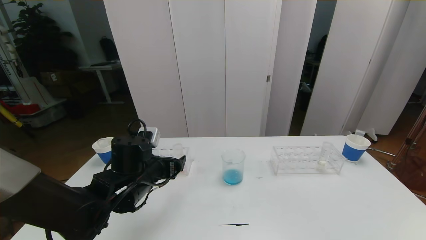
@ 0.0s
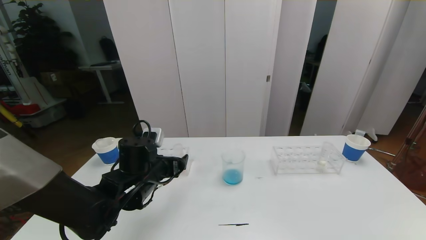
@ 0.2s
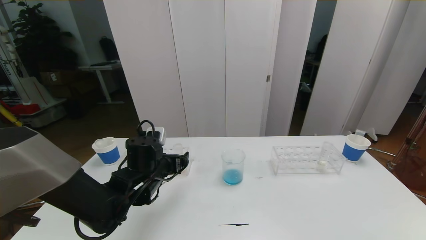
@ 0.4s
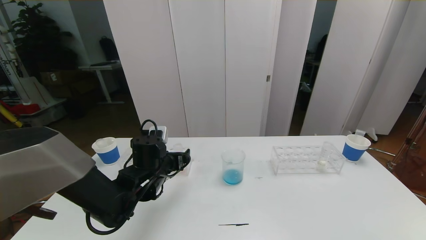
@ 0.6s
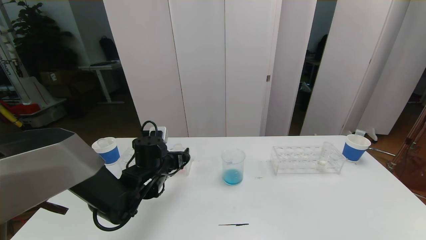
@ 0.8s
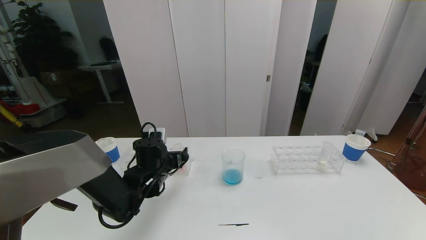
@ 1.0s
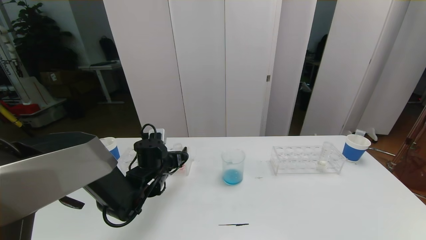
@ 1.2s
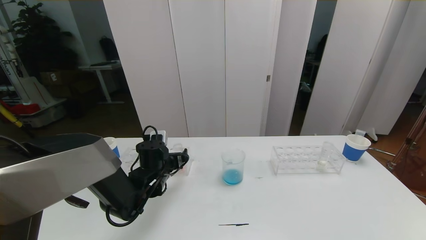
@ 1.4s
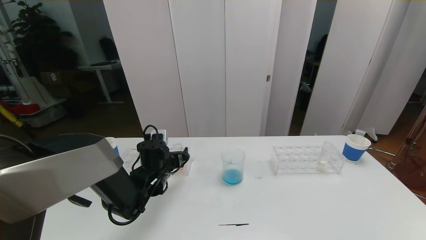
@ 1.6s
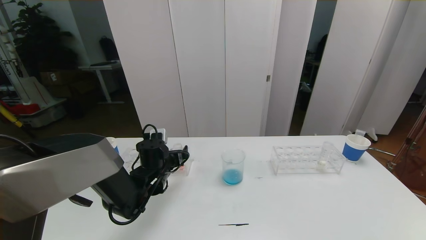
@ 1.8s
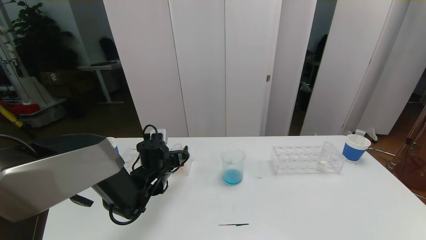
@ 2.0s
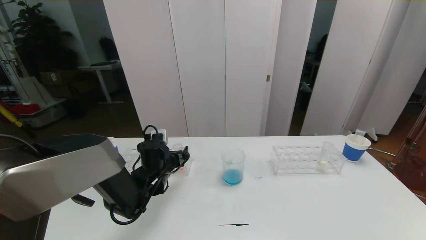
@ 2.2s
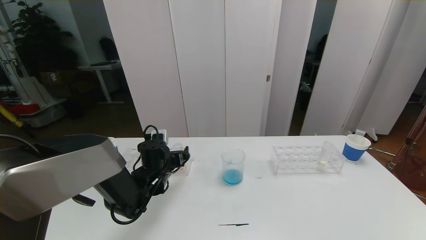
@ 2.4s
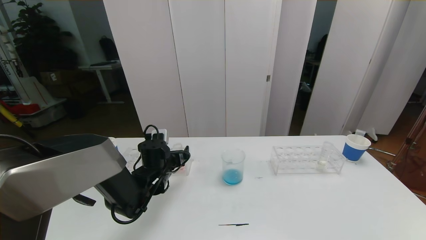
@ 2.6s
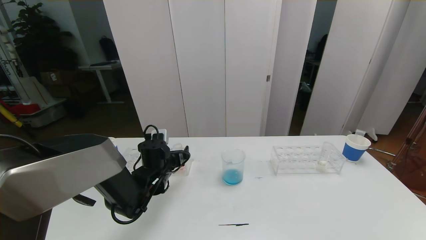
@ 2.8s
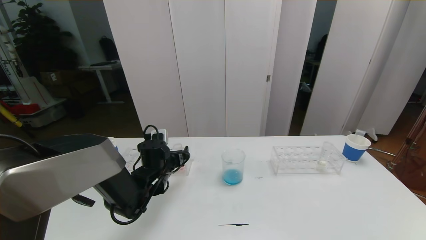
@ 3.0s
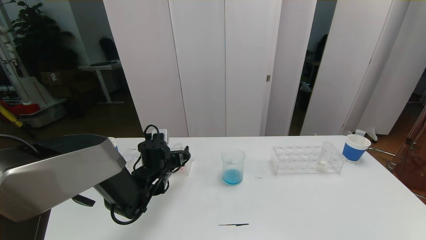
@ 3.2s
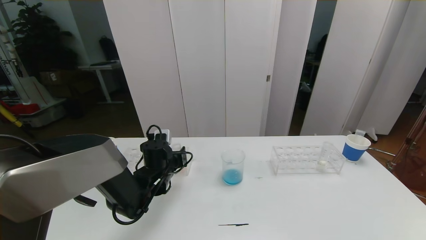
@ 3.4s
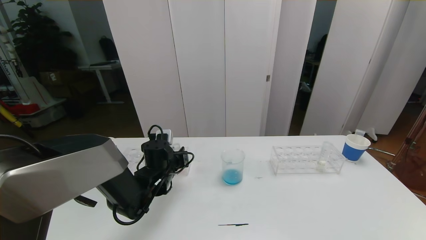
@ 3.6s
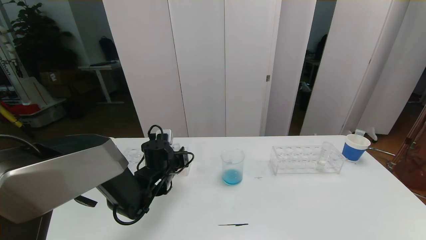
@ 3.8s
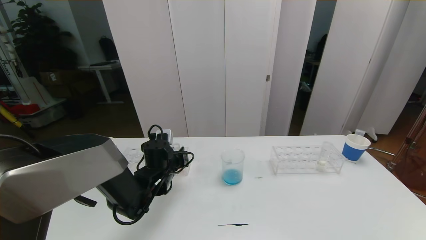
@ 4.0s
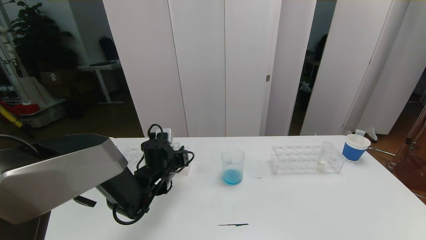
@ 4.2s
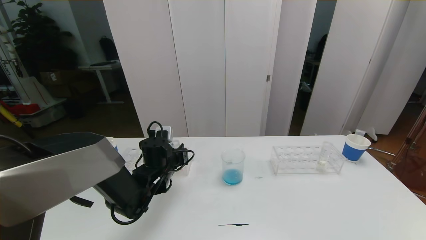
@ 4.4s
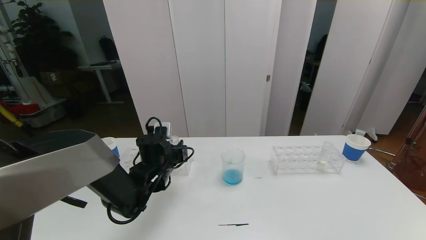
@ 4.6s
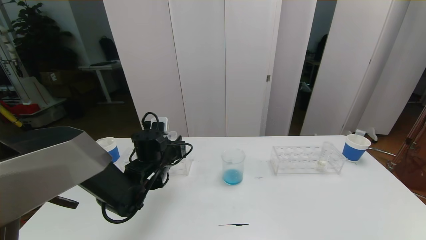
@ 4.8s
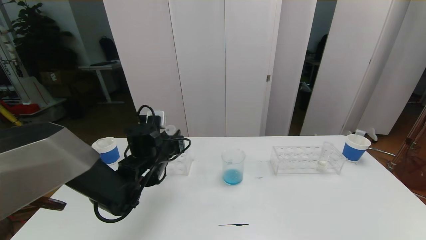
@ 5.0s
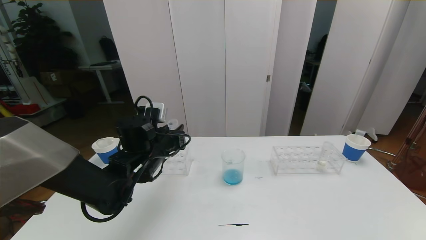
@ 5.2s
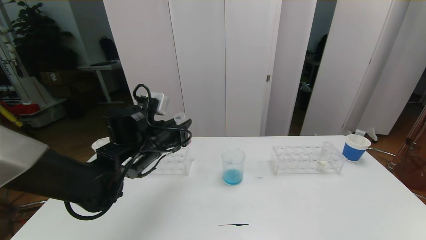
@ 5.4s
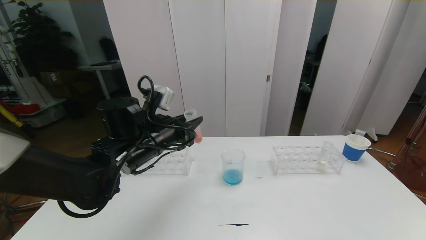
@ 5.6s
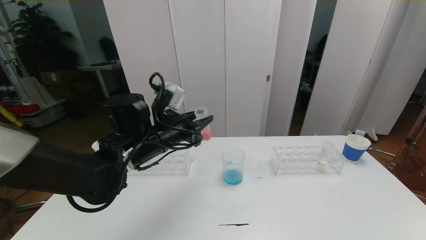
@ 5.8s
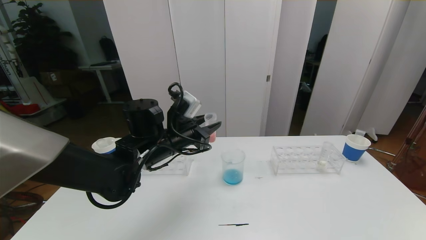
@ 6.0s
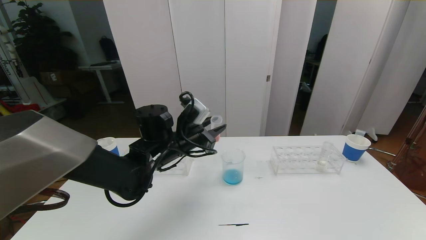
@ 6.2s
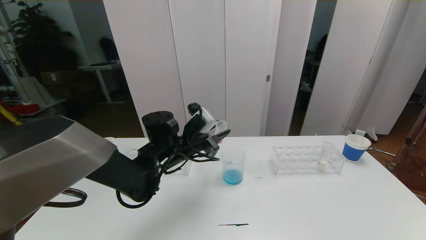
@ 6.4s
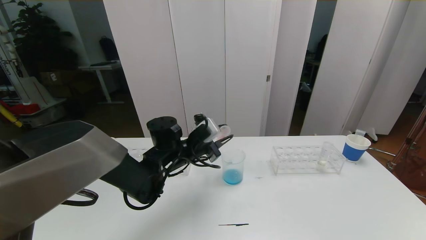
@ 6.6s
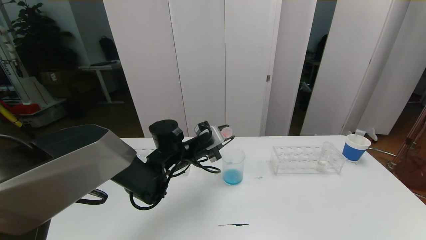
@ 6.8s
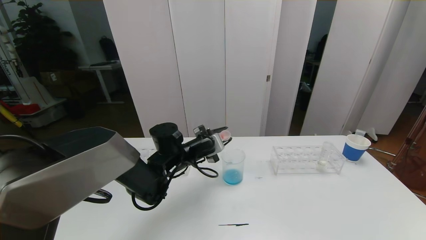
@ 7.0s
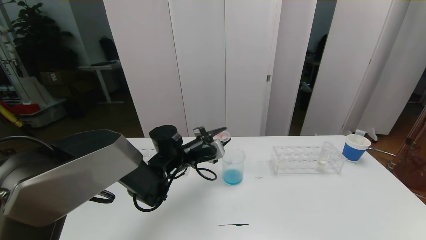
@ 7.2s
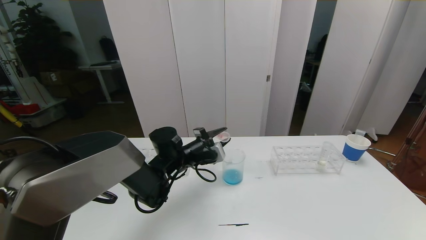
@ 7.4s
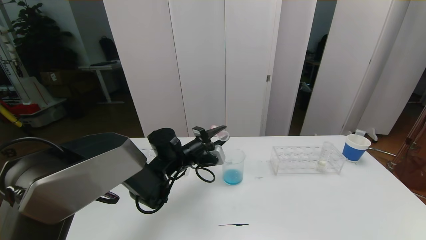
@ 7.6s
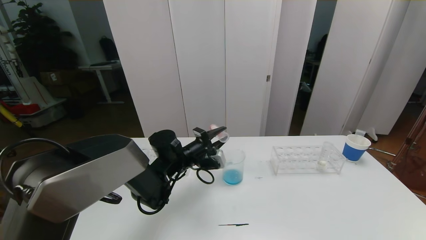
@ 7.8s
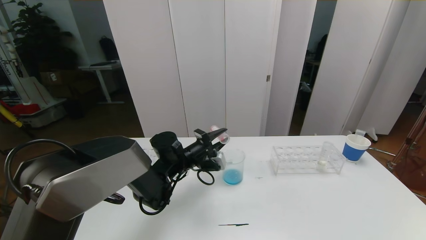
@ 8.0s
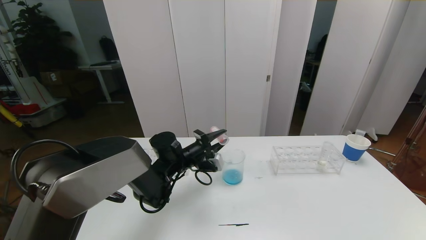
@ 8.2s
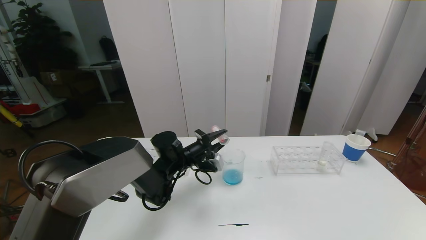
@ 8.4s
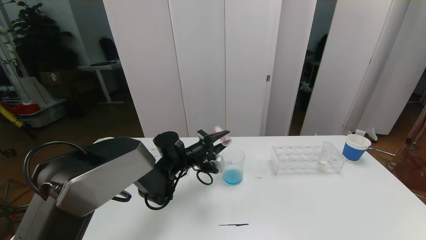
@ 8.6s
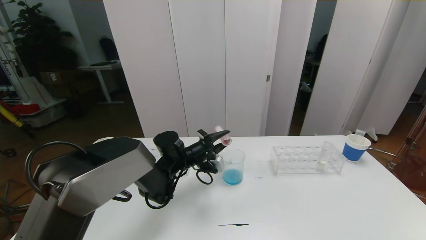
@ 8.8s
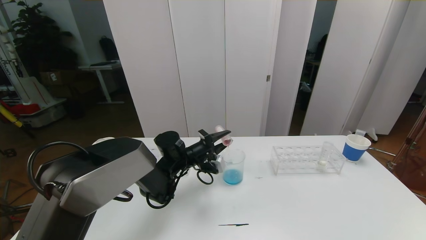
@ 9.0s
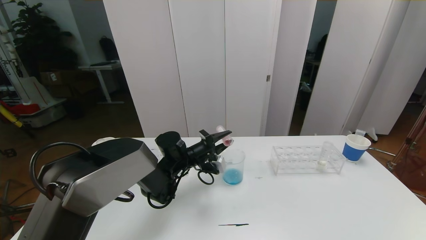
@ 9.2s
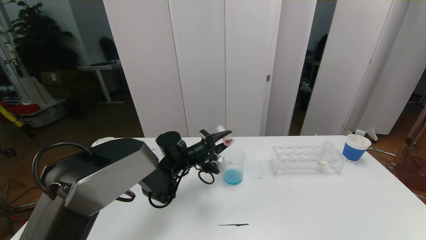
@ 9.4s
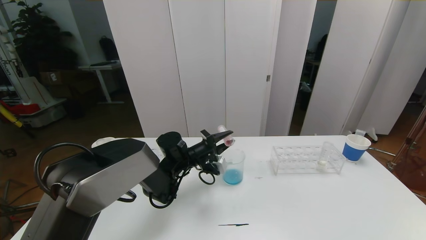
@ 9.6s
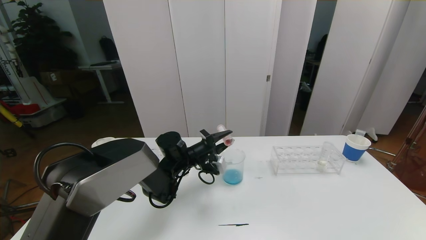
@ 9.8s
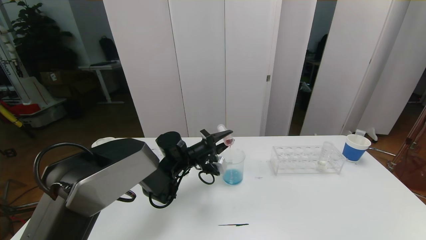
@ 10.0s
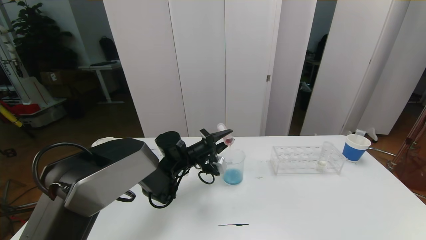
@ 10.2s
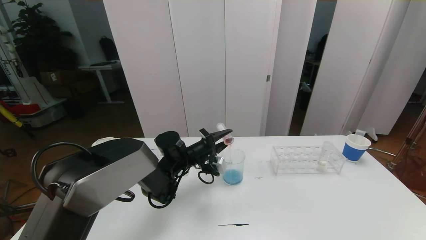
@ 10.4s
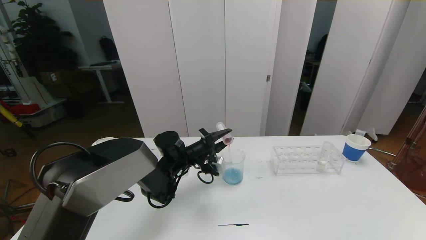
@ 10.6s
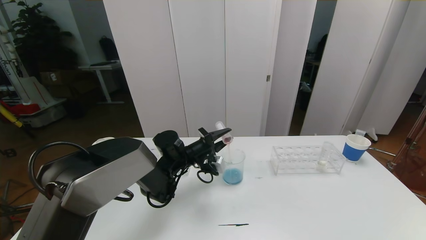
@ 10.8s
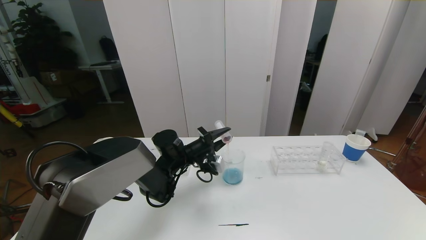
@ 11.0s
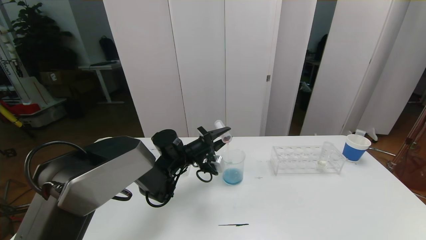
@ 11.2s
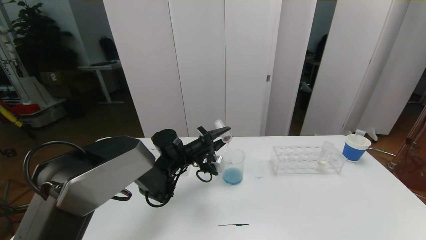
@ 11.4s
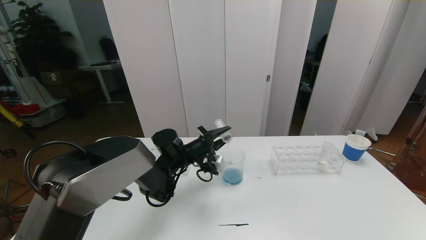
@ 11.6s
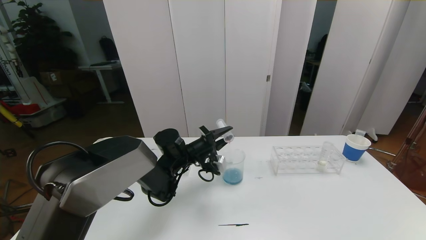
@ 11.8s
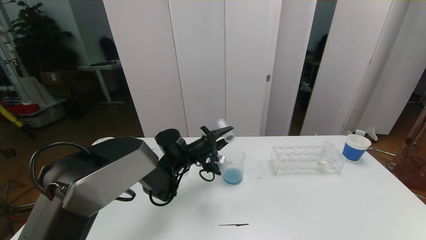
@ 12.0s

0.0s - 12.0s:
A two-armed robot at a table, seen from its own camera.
Task of the whole recording: pick up the test tube with red pigment the test tube with blue pigment and the test tube with white pigment by grippers and pour them into the beaker.
0.0s - 1.6s: The left gripper shifts approximately 10 cm forward and downward.
1.6s - 3.0s: Both grippers stay put.
3.0s - 4.4s: The left gripper closes its fingers.
4.4s - 6.0s: The left gripper is displaced upward by approximately 10 cm.
6.0s - 7.6s: The left gripper moves downward, roughly 10 cm.
7.6s - 9.0s: There are only small adjustments of the grippers.
9.0s - 10.4s: The two grippers keep their place.
10.4s - 12.0s: Both grippers stay put.

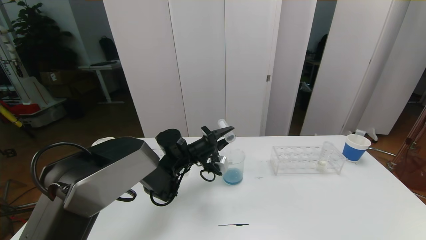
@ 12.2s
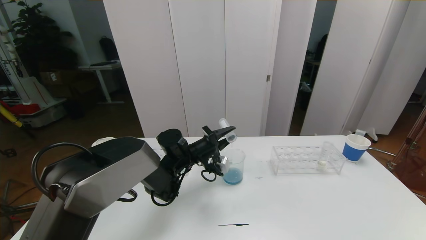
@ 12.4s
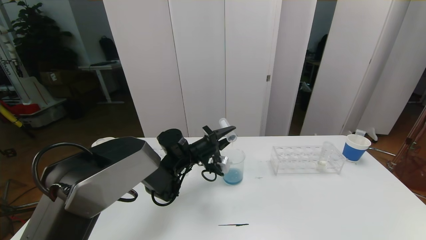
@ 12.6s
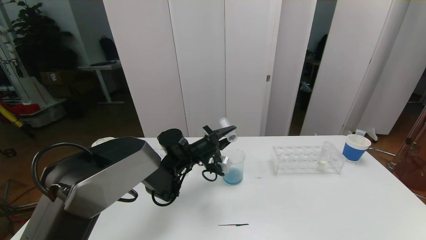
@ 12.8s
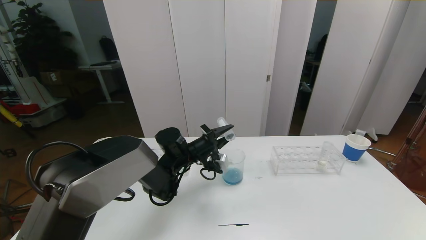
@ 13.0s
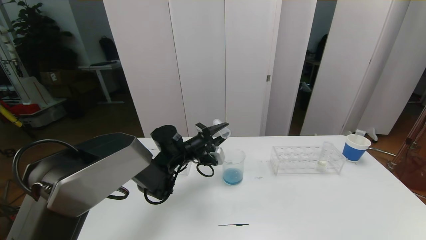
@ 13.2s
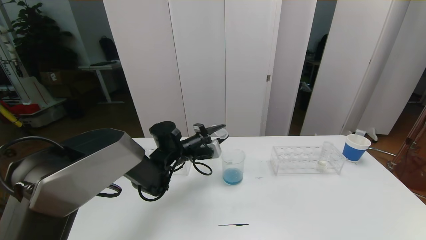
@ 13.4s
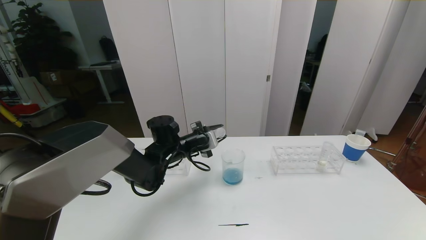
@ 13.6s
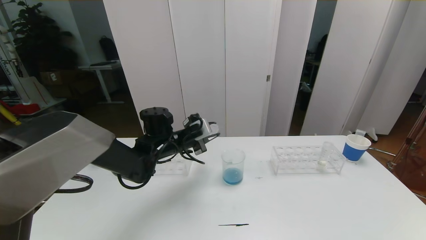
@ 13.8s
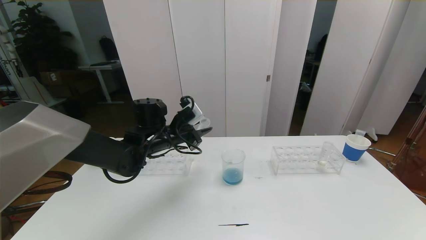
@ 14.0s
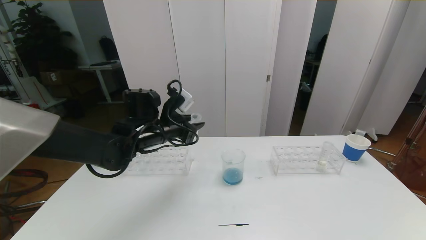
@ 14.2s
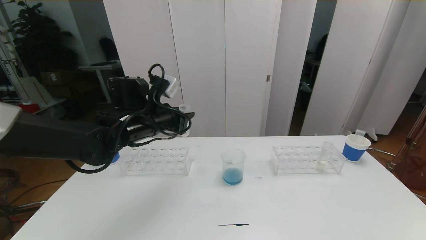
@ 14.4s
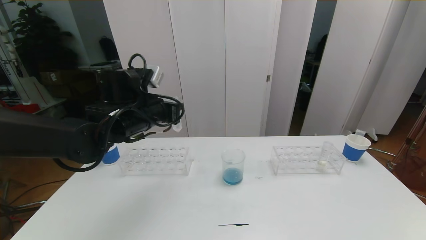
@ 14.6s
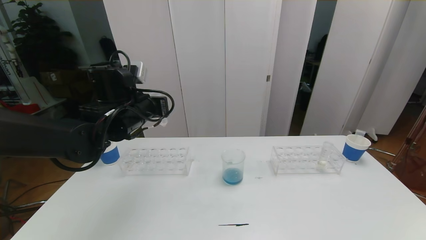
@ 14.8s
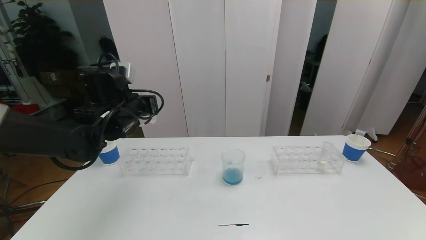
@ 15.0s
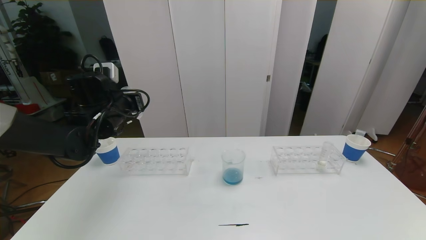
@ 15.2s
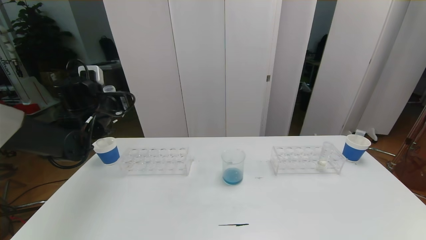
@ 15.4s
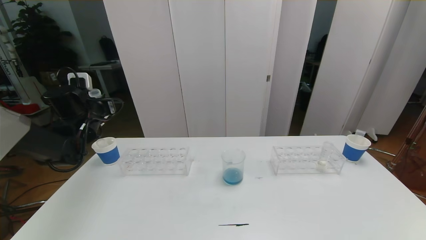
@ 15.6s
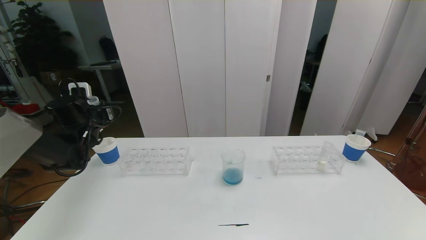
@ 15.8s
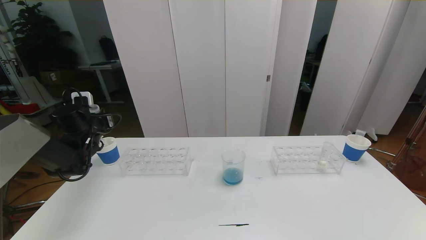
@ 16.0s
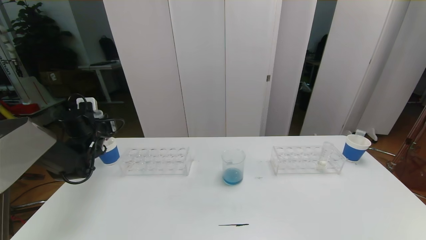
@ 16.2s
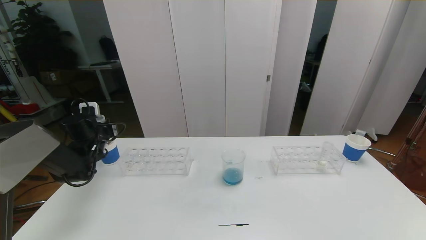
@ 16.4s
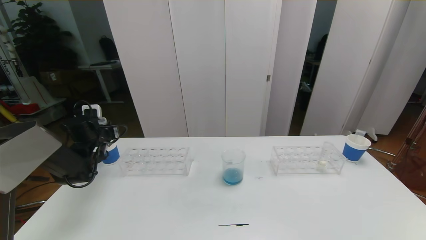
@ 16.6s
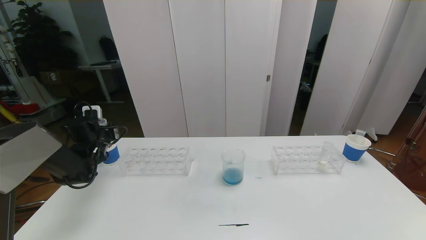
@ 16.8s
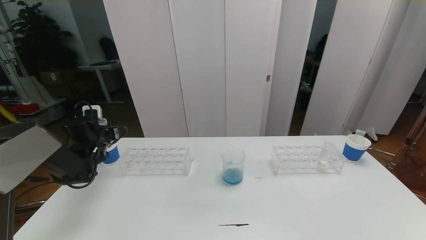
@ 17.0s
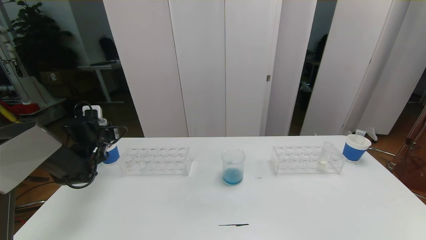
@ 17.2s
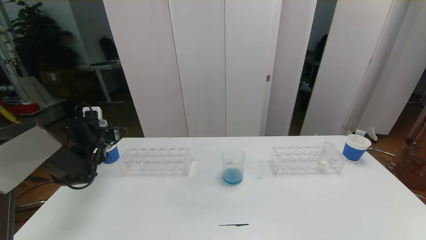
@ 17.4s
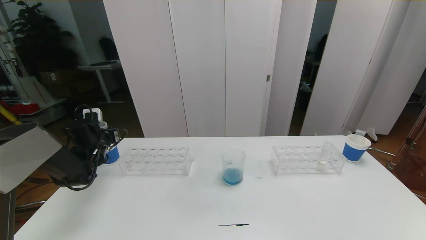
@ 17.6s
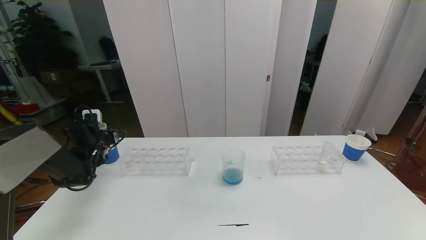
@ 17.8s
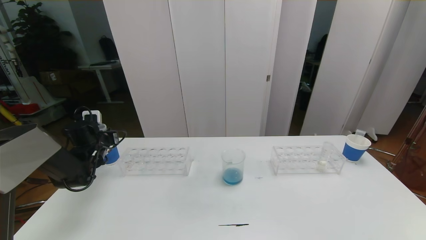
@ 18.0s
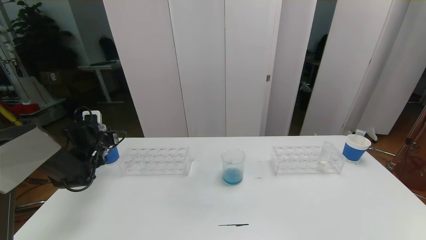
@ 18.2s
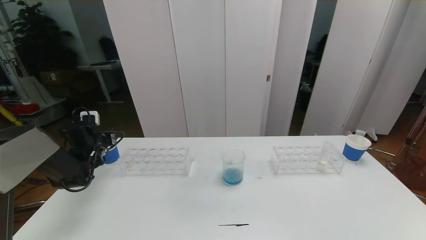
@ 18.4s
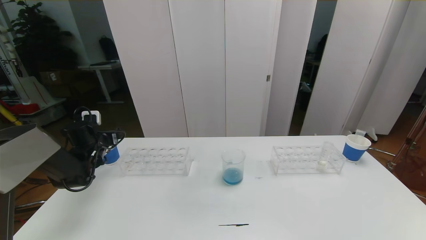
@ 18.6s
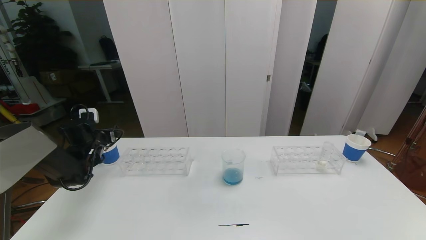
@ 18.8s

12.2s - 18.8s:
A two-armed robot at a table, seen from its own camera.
Task of the whole recording: pick up the test tube with red pigment the test tube with blue pigment and the test tube with white pigment by grippers and pour them into the beaker.
12.2s - 13.8s: The left gripper moves upward, approximately 5 cm.
13.8s - 15.4s: The left gripper goes about 20 cm to the left and upward.
15.4s - 17.2s: The left gripper goes some 15 cm downward and to the left.
17.2s - 18.8s: The left gripper opens.
